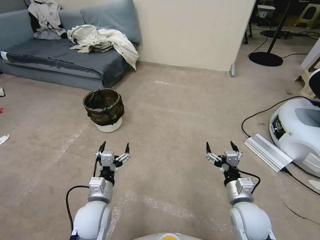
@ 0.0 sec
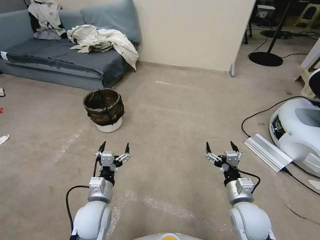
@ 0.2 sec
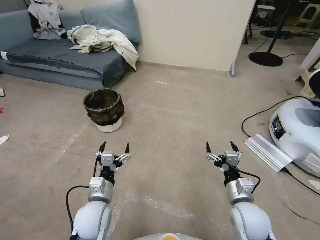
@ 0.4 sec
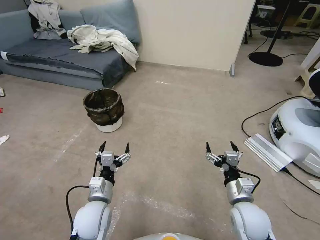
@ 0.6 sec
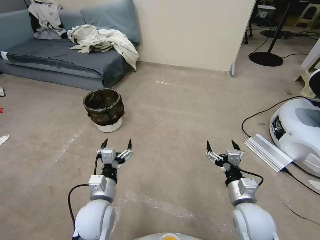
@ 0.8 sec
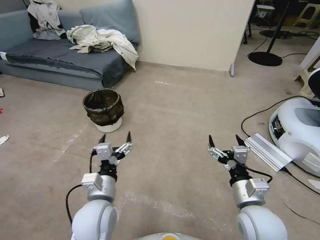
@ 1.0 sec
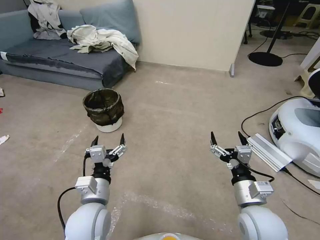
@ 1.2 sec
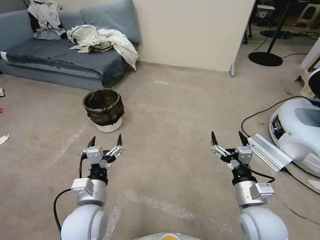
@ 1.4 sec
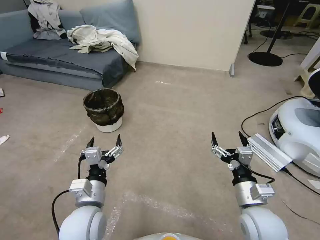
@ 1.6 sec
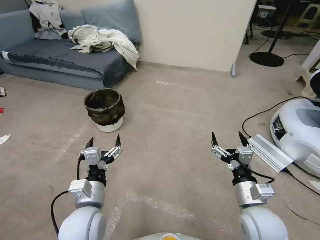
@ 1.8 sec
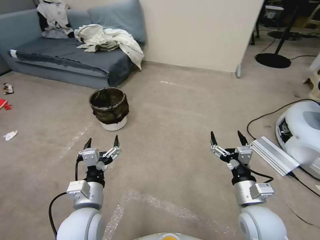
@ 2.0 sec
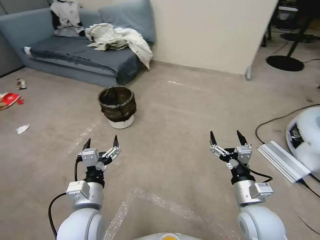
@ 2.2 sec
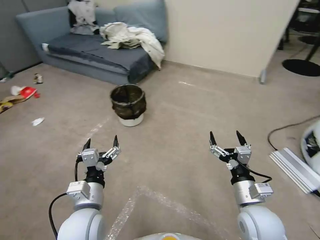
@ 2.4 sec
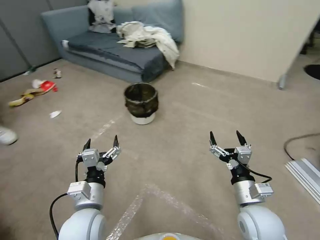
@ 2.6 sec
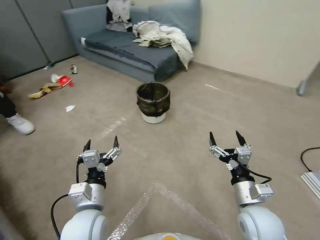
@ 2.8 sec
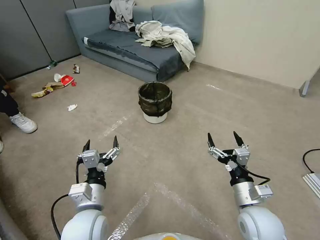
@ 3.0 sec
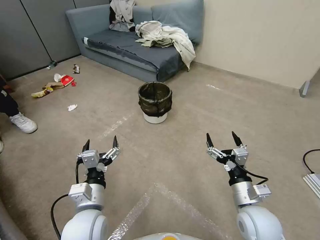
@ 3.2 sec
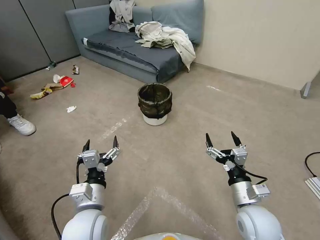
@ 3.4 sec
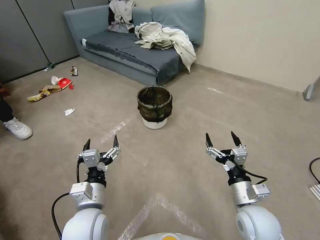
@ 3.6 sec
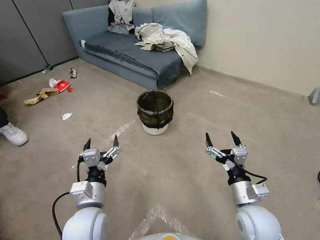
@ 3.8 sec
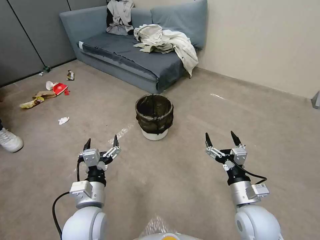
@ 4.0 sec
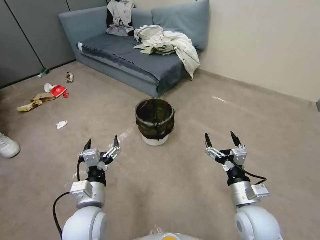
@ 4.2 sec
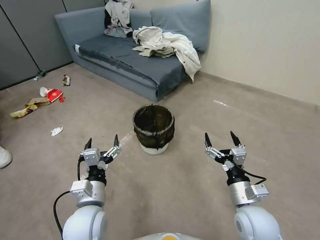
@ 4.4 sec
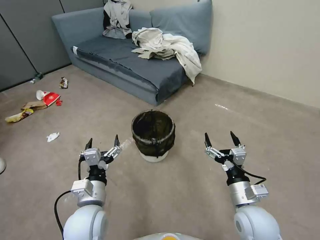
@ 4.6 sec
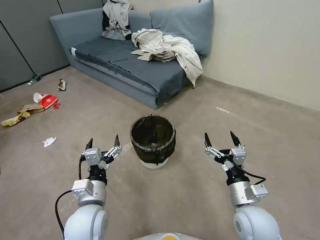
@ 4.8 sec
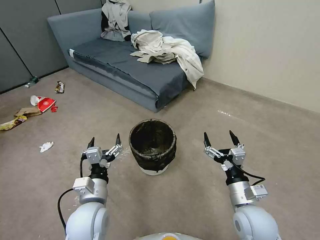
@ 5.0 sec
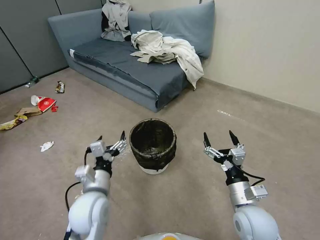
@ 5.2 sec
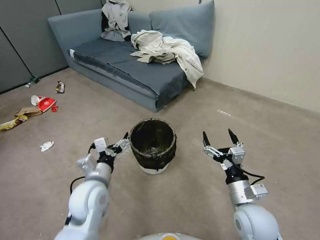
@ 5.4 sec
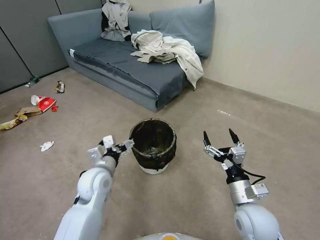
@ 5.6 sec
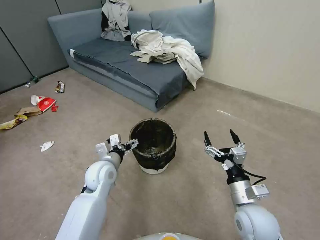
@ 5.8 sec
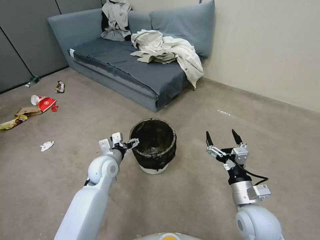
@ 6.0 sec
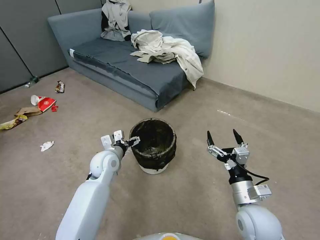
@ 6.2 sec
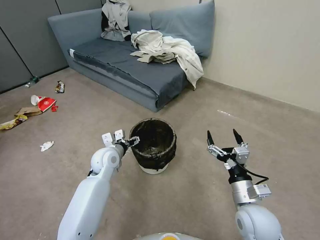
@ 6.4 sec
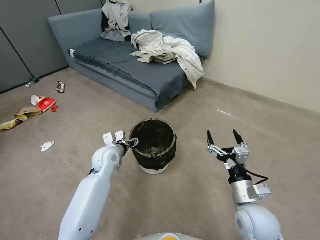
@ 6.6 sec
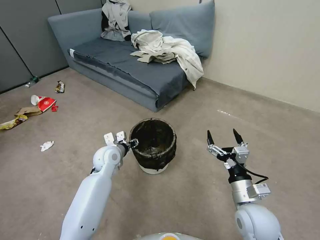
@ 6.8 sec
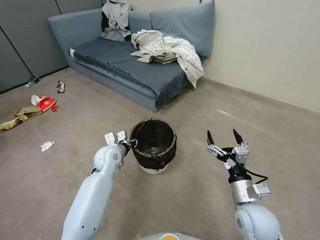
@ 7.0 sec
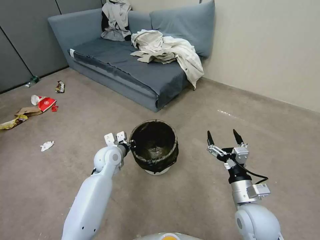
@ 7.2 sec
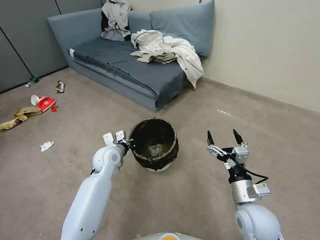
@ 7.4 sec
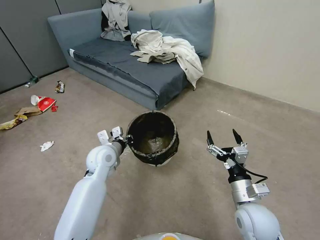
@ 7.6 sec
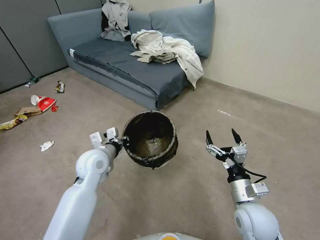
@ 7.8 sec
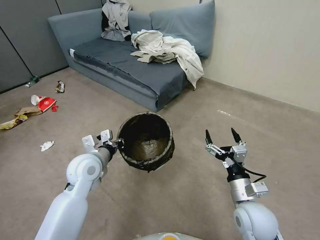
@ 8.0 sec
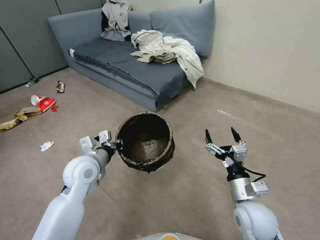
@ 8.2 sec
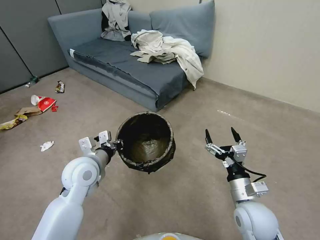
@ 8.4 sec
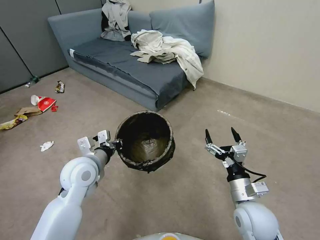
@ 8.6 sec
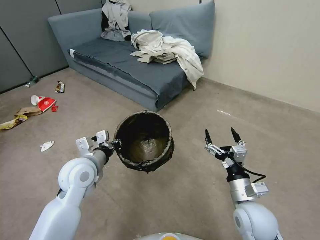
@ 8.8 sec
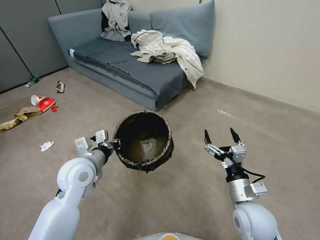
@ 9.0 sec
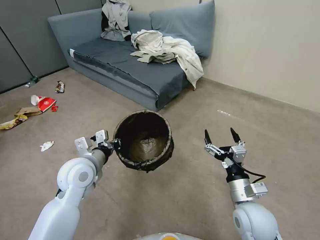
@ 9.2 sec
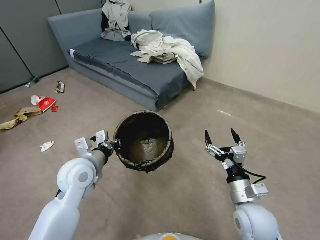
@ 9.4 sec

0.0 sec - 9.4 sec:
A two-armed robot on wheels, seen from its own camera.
Task of the whole recording: Pick up the trash can from the floor.
4.8 sec - 6.2 sec: The left gripper moves forward, roughly 20 cm.
6.2 sec - 7.8 sec: The left gripper goes approximately 5 cm upward, and closes.
7.8 sec - 9.4 sec: The left gripper is displaced backward by approximately 5 cm.
